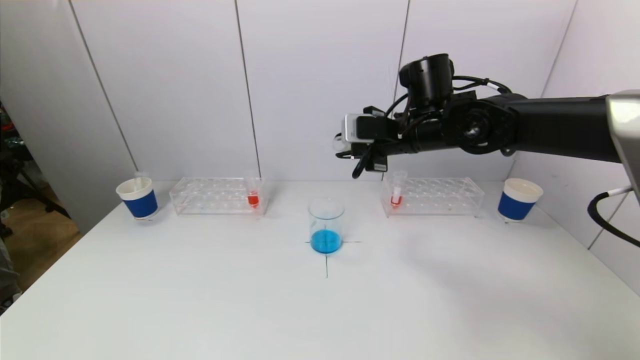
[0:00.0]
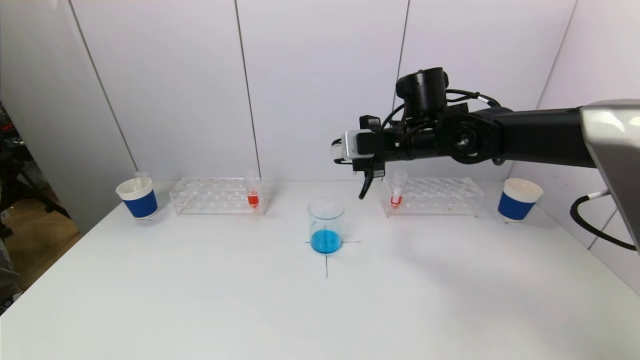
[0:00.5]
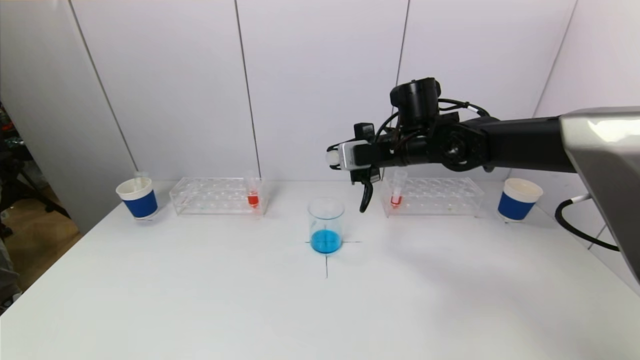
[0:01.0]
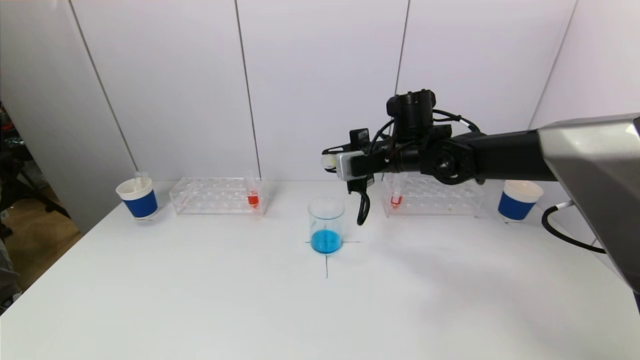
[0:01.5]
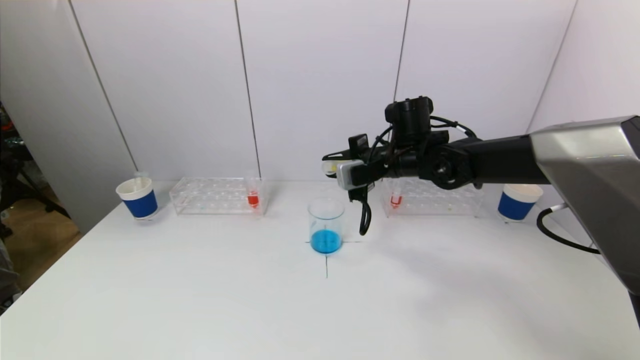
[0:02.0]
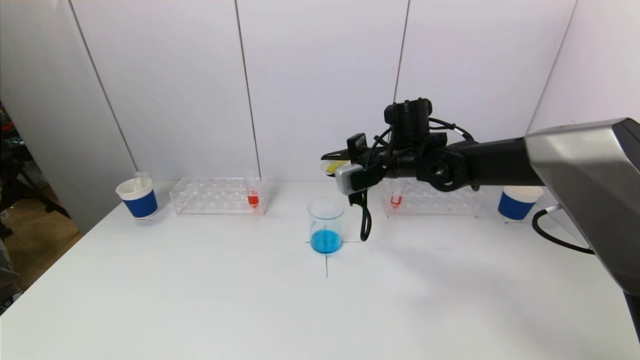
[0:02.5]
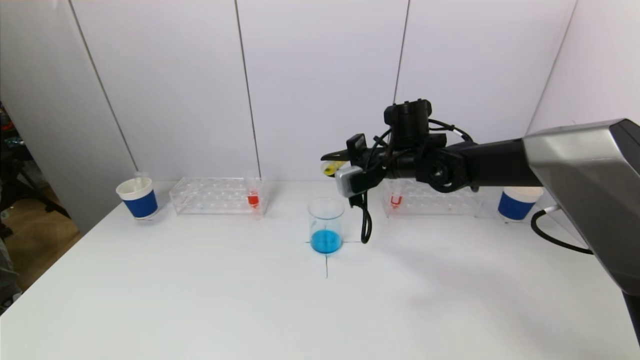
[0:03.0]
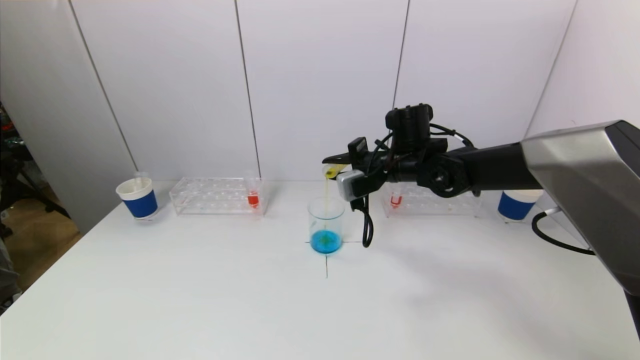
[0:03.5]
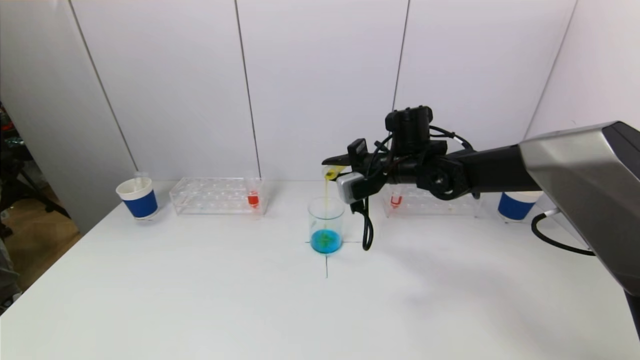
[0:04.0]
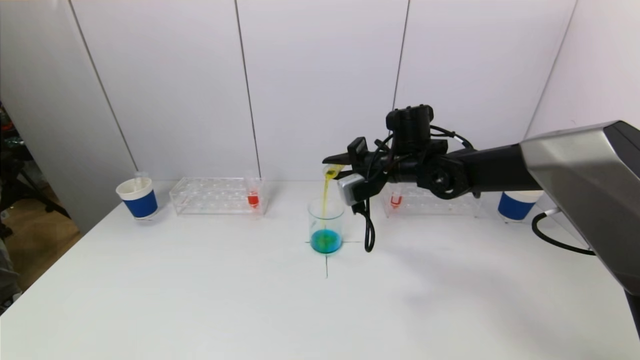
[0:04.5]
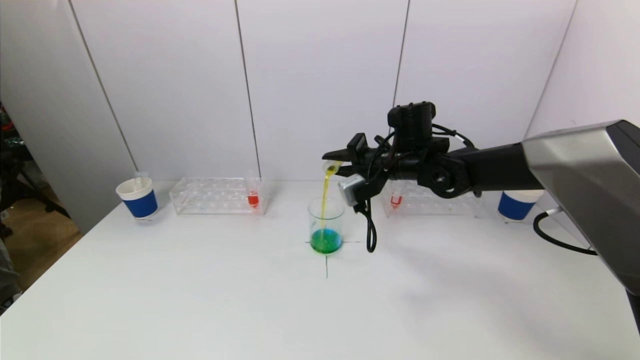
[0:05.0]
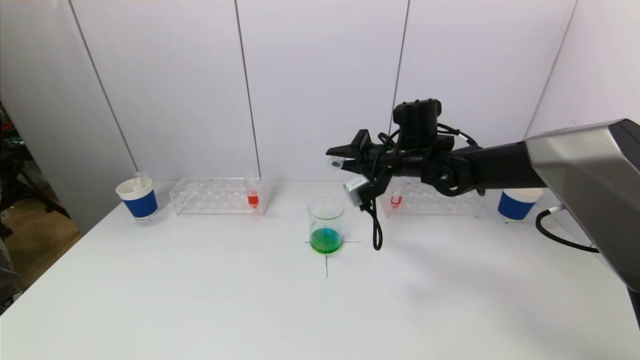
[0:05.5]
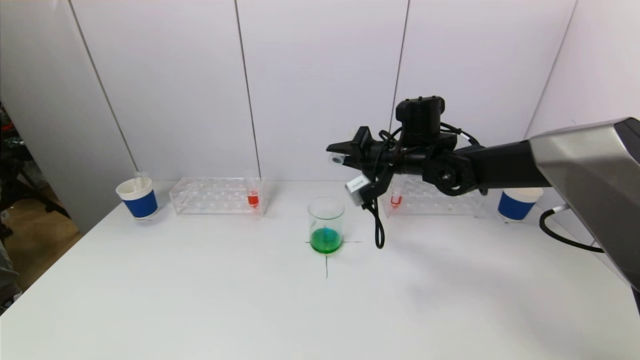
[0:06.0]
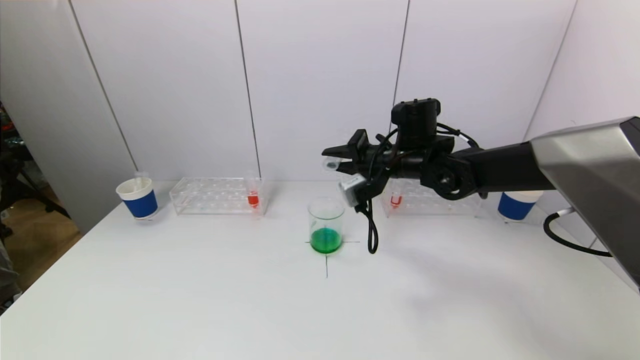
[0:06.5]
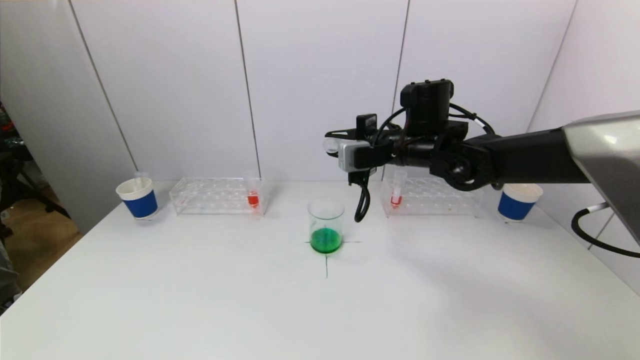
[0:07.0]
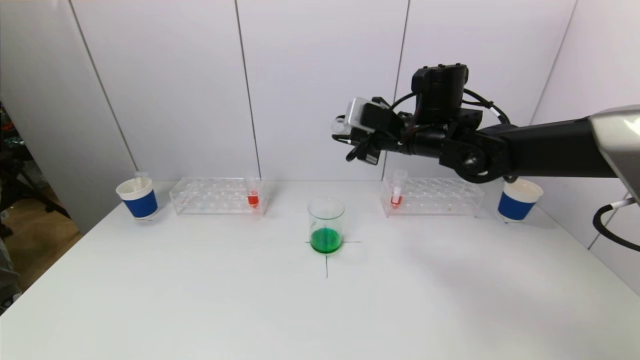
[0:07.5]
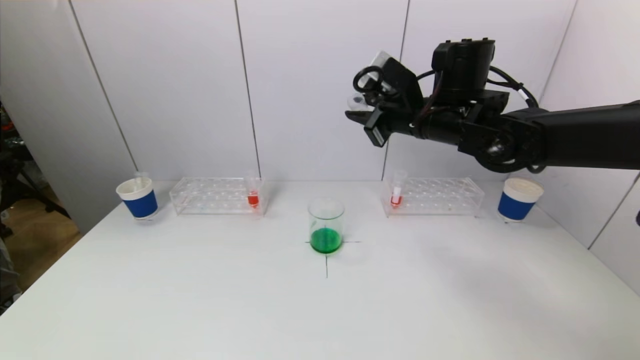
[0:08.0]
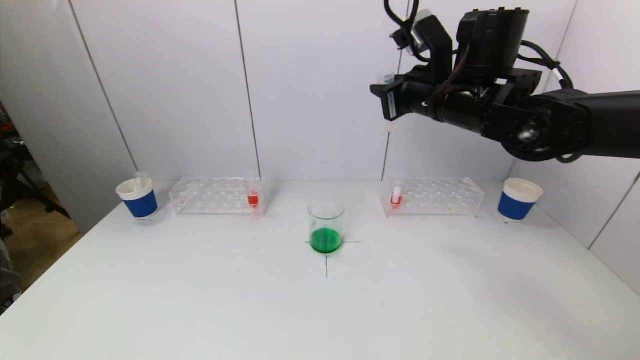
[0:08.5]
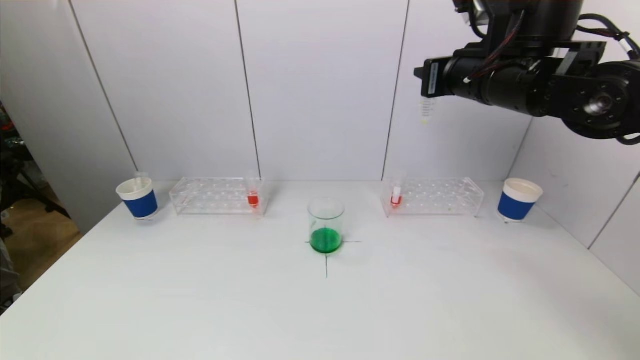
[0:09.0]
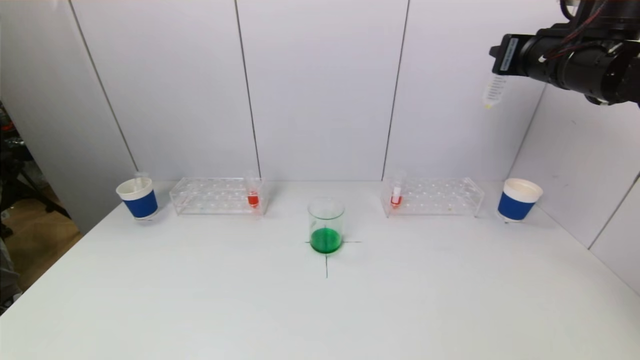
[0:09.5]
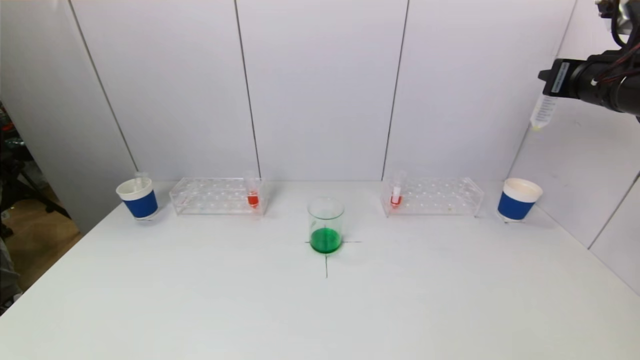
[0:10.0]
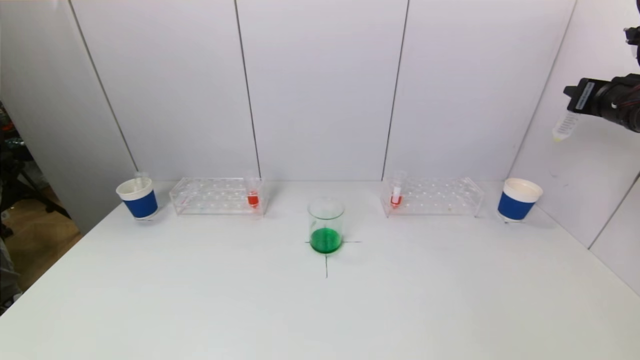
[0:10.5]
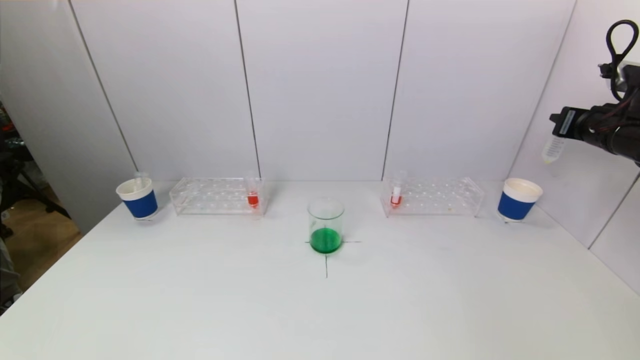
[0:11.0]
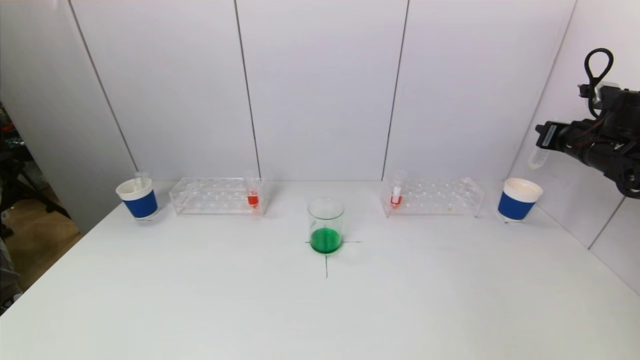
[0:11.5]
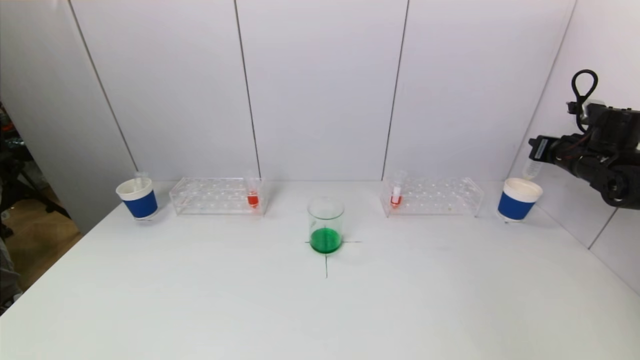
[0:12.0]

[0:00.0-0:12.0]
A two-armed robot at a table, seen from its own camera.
Task of the whole recording: pick up a test tube with pigment on left test tube rack and a test tube with pigment on right test tube rack by grippers and pour them into the beaker.
Step, 0:00.0 to 0:05.5: Pour the yellow reagent into the graduated cylinder with the right gripper.
0:00.0 to 0:02.0: The right gripper moves downward, roughly 5 cm.
0:02.0 to 0:04.0: The grippers move only a little.
0:06.0 to 0:08.0: The right gripper is displaced upward by approximately 10 cm.
0:08.0 to 0:10.0: The right gripper shifts about 20 cm to the right.
0:10.0 to 0:12.0: The right gripper travels downward, to the right and forward by approximately 20 cm.

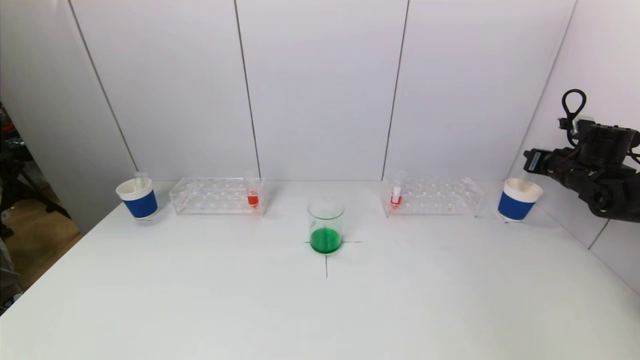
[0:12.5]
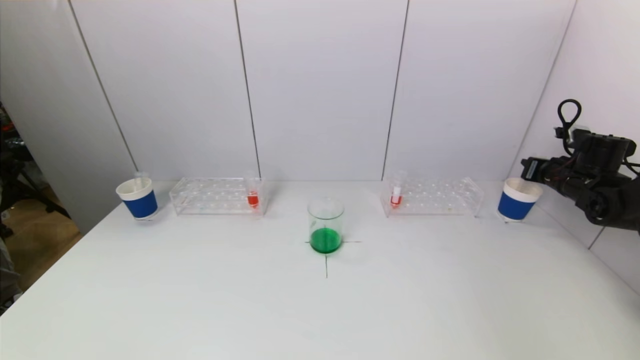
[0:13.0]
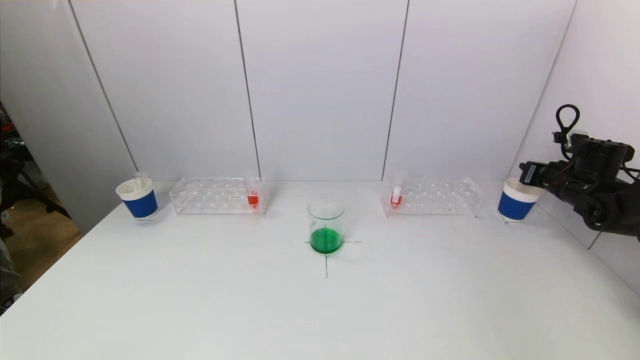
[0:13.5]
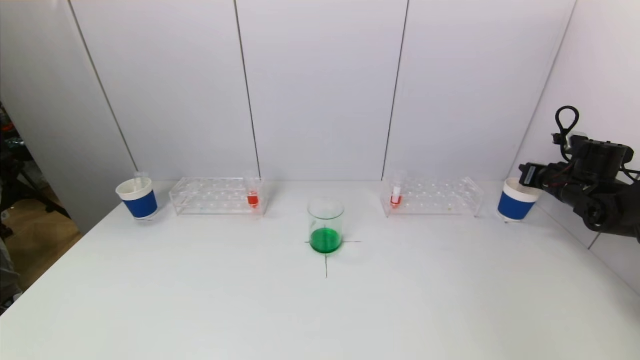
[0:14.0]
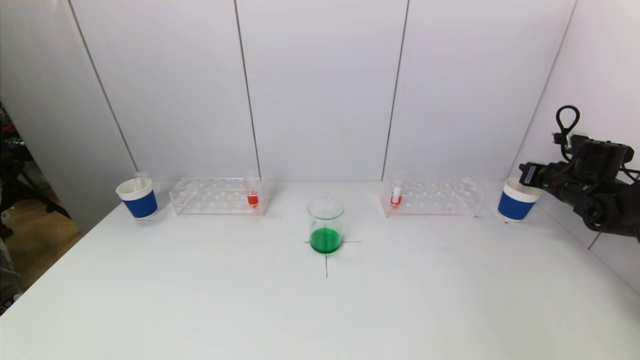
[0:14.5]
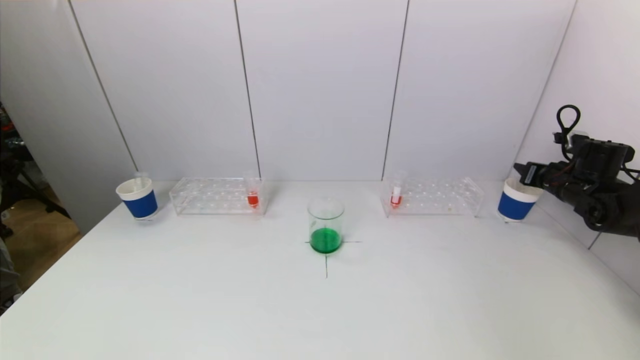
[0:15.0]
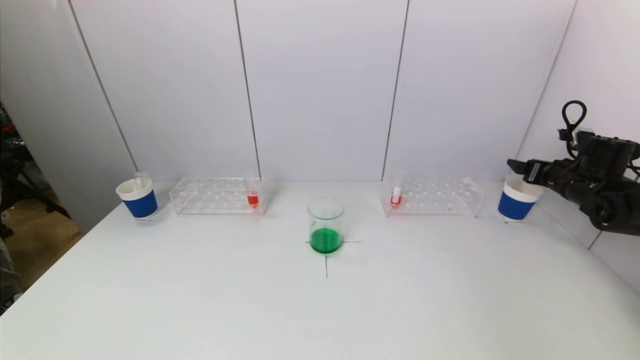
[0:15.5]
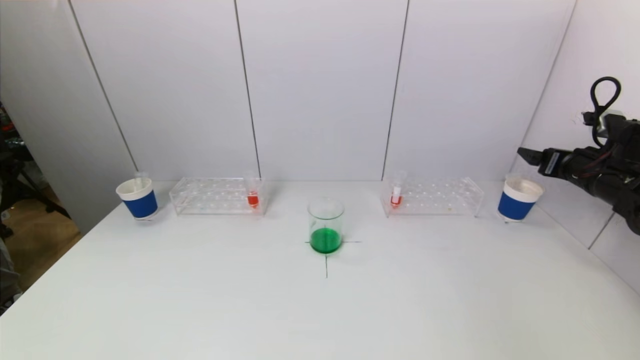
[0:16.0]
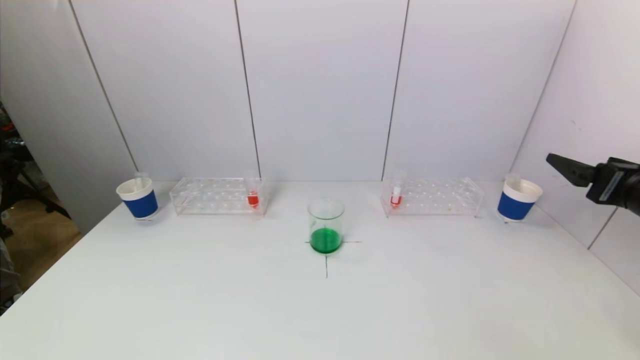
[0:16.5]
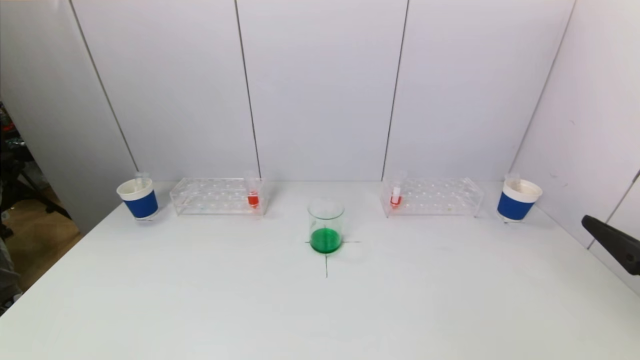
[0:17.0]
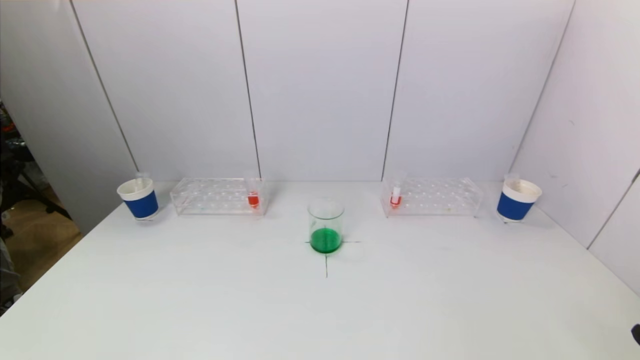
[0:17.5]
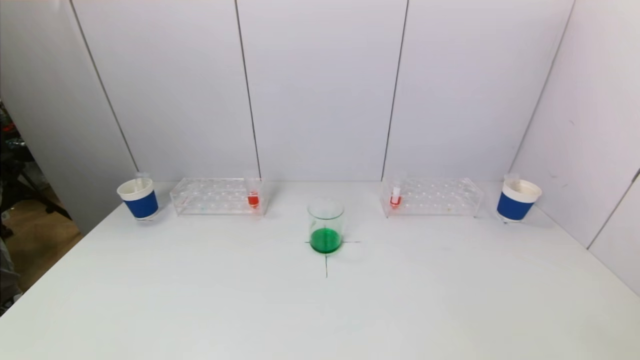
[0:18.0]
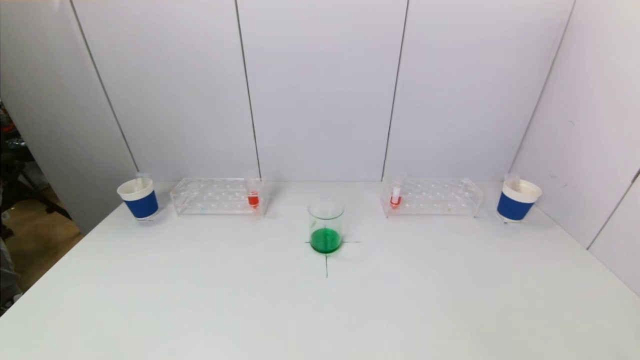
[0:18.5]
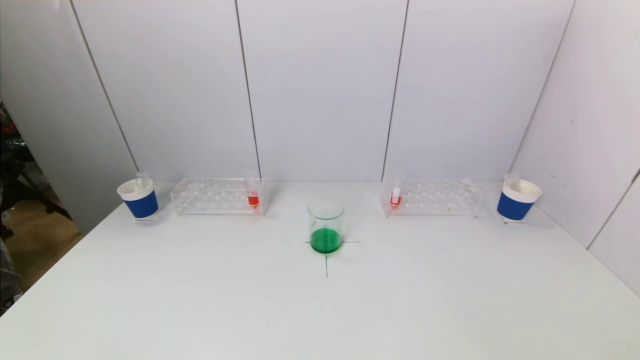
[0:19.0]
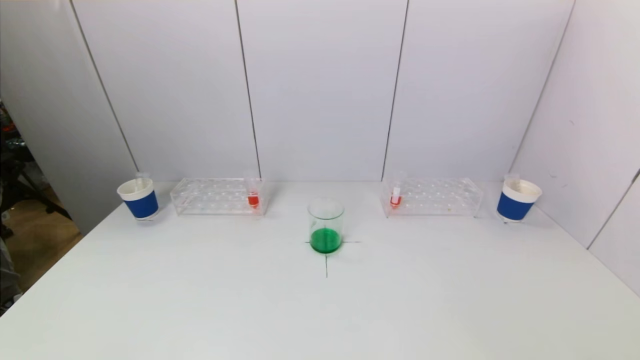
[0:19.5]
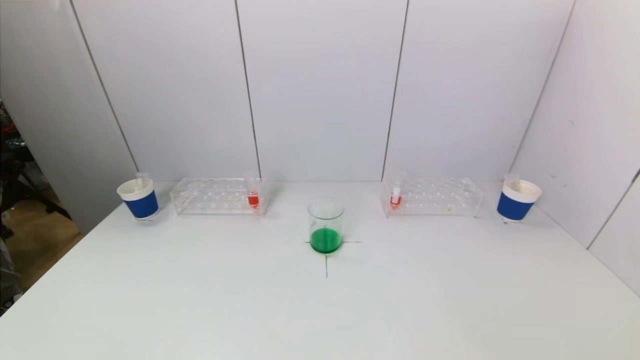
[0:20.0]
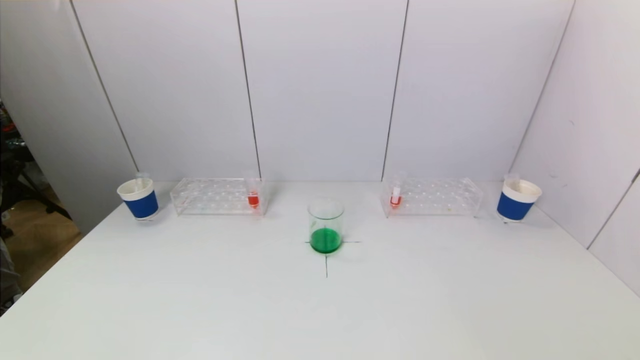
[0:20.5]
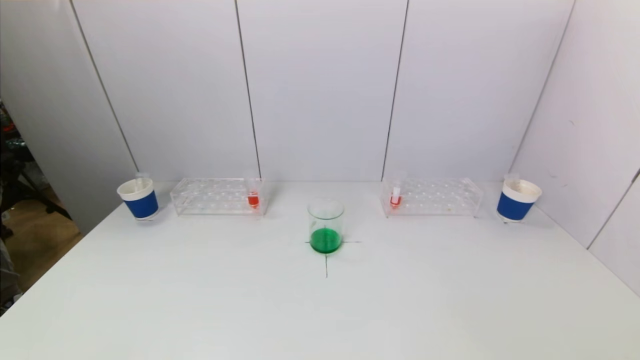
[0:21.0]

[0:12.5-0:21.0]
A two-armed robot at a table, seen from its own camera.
Task of the whole recording: pick up a test tube with pigment on left test tube rack and a test tube with pigment on right test tube rack by grippers and pour them into the beaker.
Step, 0:12.5 to 0:15.5: Place the test tube into the paper cup with the right gripper.
0:12.5 to 0:14.5: The grippers make only small movements.
0:14.5 to 0:16.5: The right gripper goes approximately 25 cm backward, upward and to the left, and opens up.
0:16.5 to 0:19.0: The right gripper goes approximately 25 cm backward.
